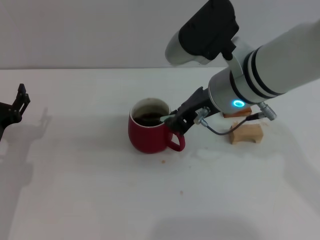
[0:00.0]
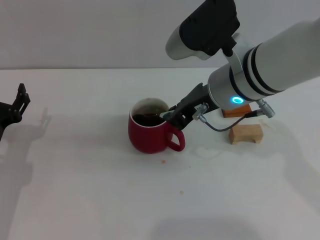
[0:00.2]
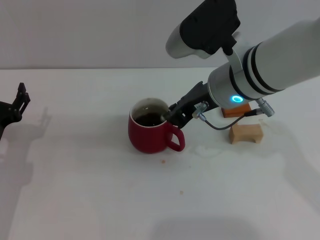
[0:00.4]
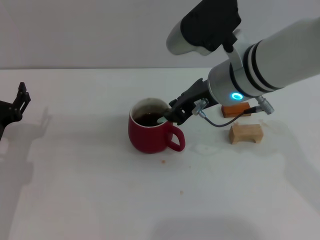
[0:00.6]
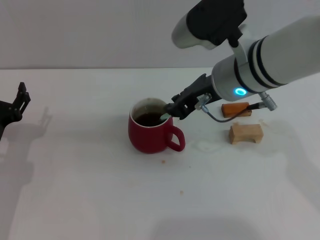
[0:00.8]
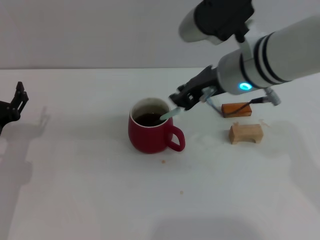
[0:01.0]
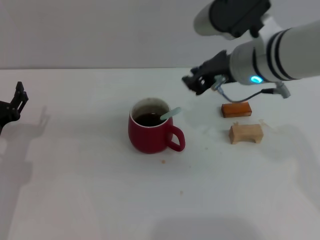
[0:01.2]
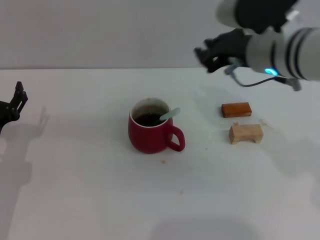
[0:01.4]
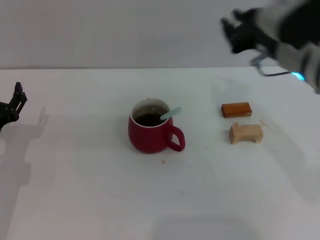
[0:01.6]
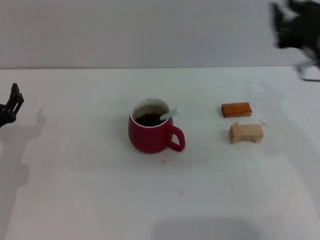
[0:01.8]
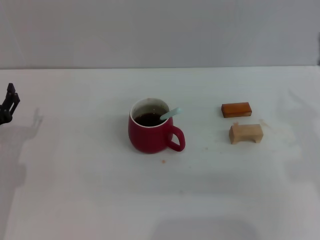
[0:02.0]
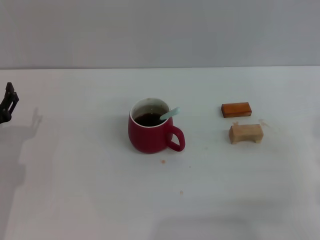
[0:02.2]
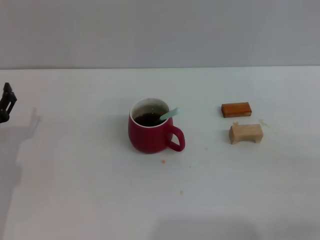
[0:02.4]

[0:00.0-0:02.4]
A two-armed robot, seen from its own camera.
Task of the whole recording: Move the red cup to the center, lift the blue spoon, stir it three times in the cup, and put the spoon into the cup.
0:00.0 to 0:01.2: The grippers make only small movements.
0:01.2 to 0:02.4: The right gripper heads to the right, backward and downward, covering approximately 30 cm.
